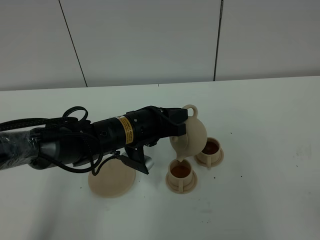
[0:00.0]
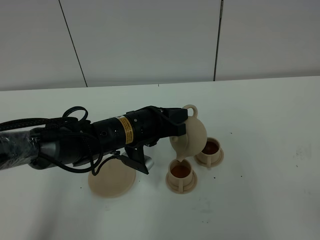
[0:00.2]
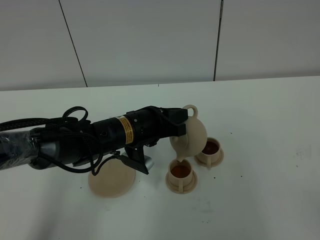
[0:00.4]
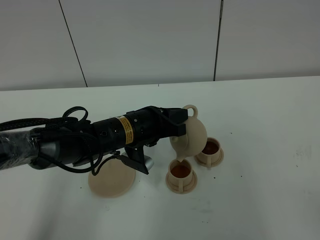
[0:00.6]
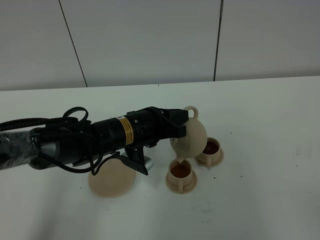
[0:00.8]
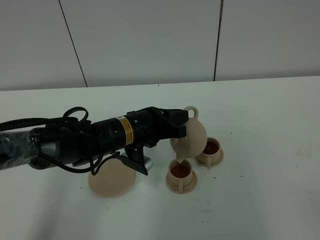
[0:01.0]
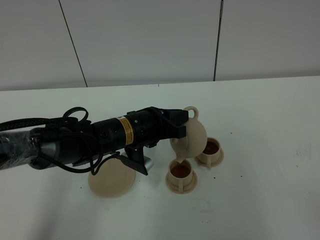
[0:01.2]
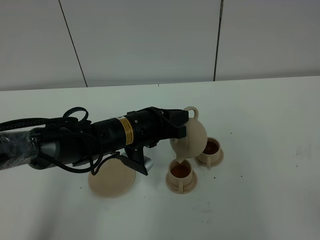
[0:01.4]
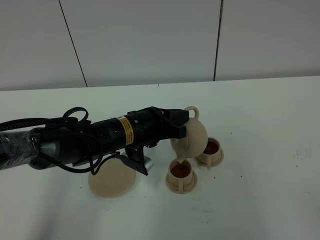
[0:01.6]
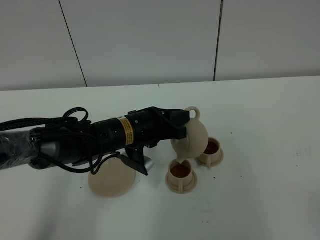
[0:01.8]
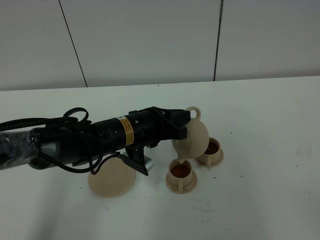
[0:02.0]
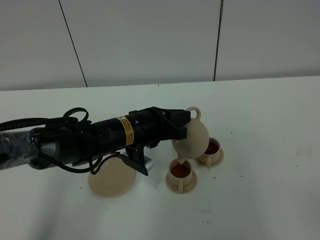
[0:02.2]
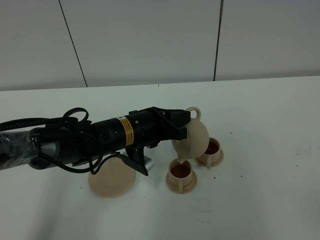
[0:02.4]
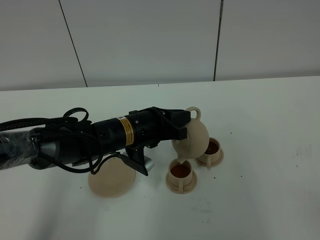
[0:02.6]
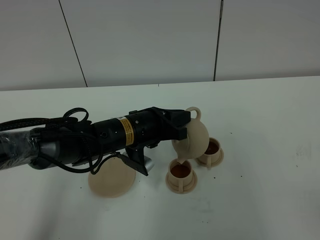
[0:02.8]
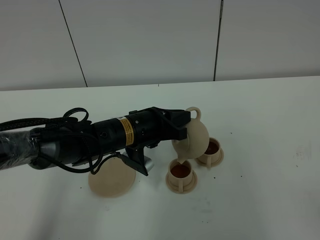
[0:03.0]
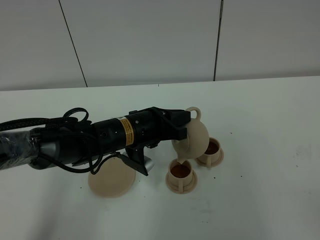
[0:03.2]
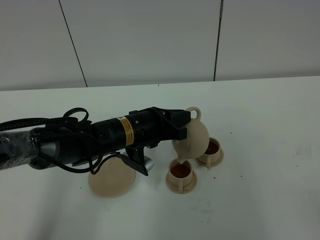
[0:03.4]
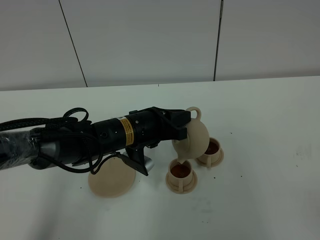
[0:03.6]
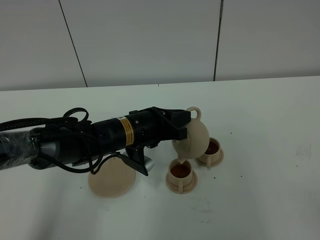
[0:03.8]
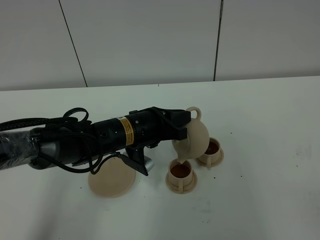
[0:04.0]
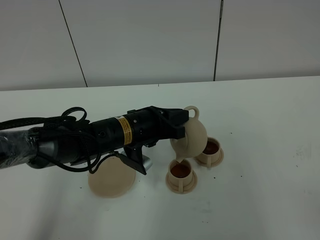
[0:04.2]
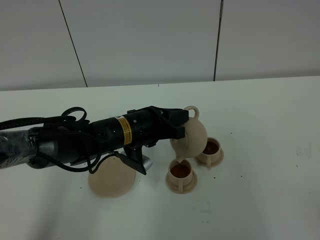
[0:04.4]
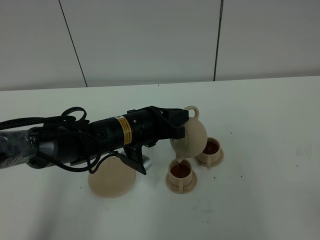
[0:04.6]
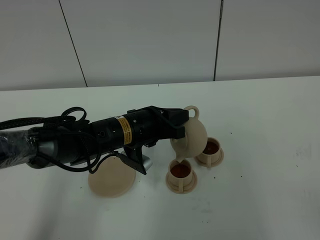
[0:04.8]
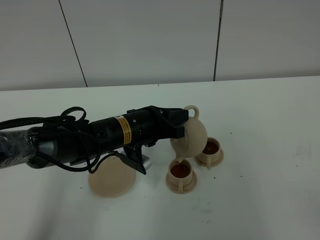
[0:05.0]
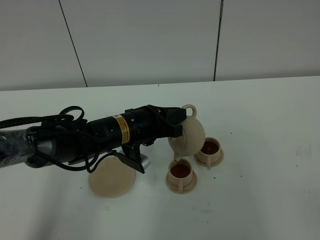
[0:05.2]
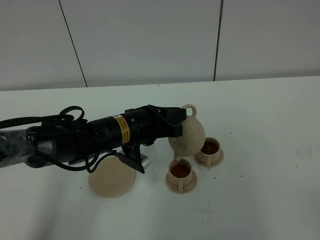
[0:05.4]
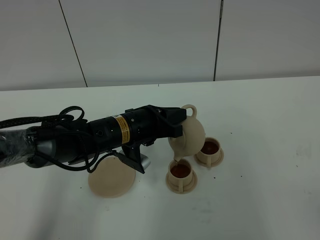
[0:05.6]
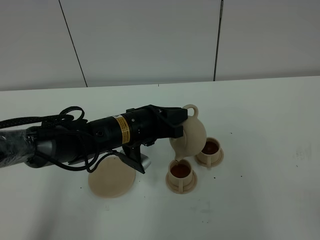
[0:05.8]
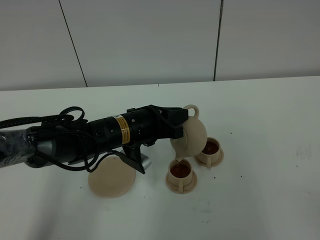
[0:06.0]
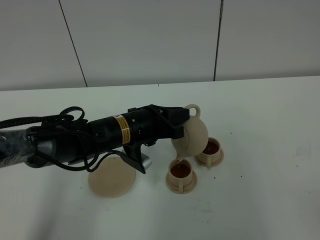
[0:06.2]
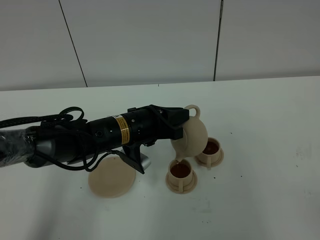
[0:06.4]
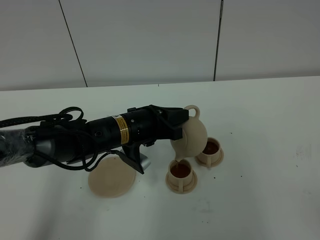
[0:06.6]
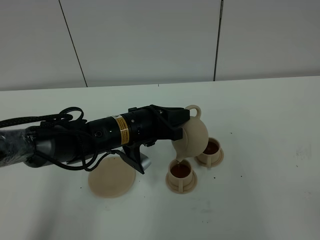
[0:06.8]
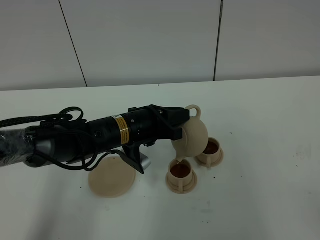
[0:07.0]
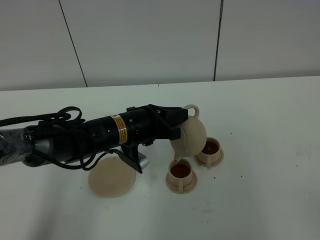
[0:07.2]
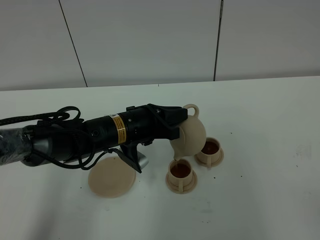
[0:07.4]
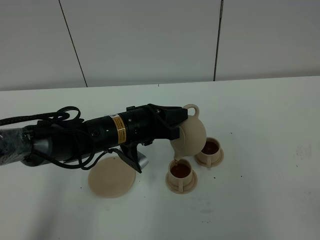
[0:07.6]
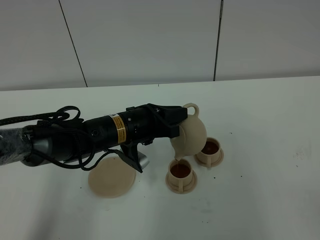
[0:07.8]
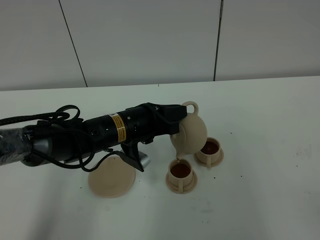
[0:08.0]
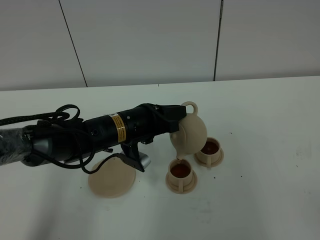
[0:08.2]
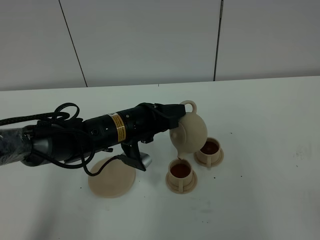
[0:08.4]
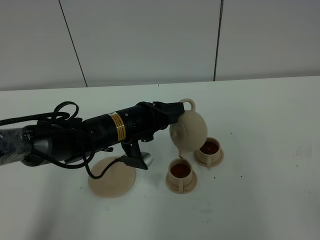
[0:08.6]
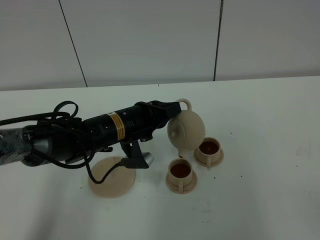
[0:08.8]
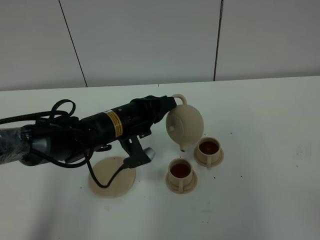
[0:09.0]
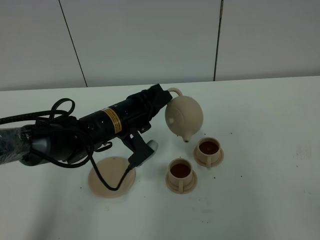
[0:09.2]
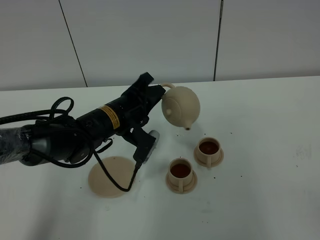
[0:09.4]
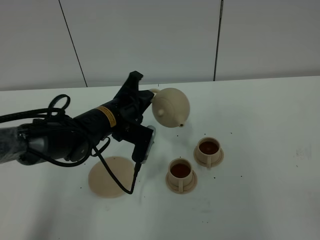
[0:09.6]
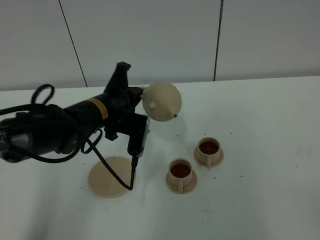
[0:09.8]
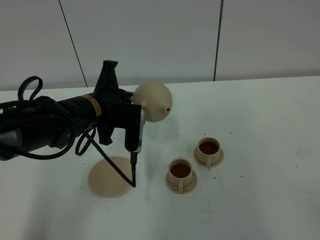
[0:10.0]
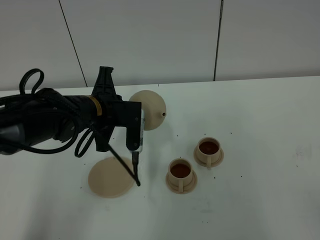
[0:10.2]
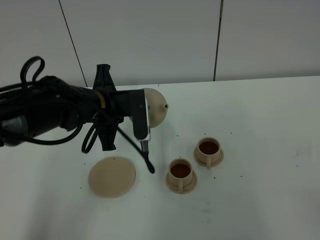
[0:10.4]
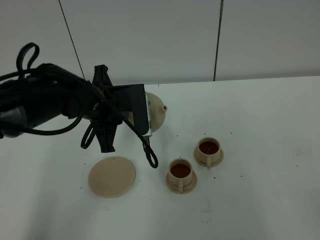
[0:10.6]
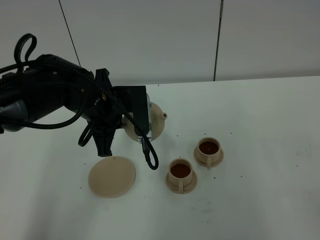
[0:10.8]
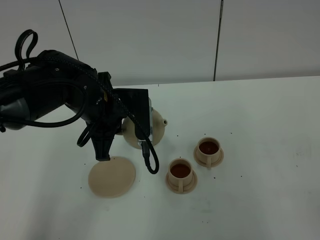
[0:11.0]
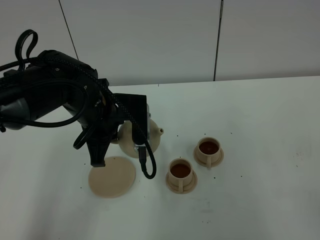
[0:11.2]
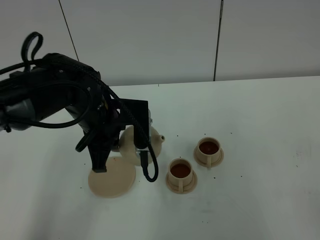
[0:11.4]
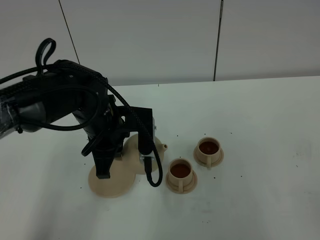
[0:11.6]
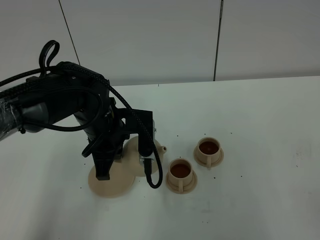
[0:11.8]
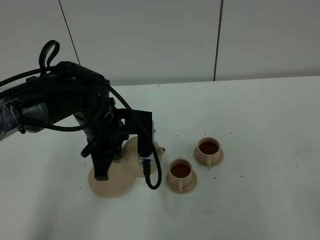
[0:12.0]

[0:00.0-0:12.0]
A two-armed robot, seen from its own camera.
Task of the whole recording: grasp the brown teapot and pour the tea into the two brown teacups one by one, put the brown teapot back in its original place.
Step, 0:00.0 to 0:08.6: Pour tea into the teacup with the left gripper.
0:00.0 to 0:06.0: The two grippers keep their place.
0:06.0 to 0:07.6: Both grippers stay put.
0:09.0 to 0:10.4: The left gripper heads upward, covering roughly 5 cm.

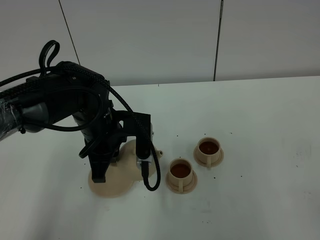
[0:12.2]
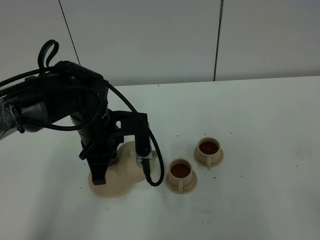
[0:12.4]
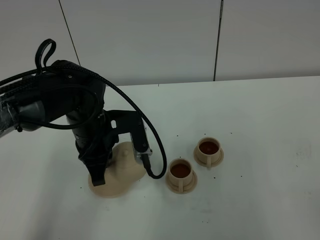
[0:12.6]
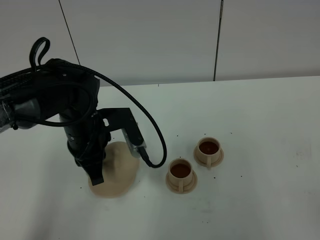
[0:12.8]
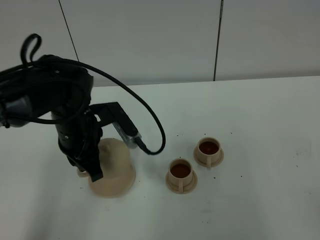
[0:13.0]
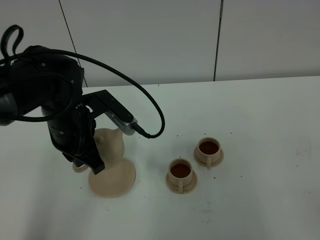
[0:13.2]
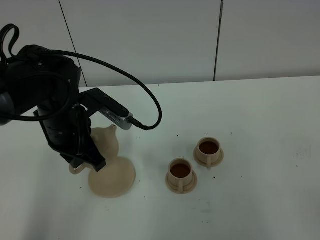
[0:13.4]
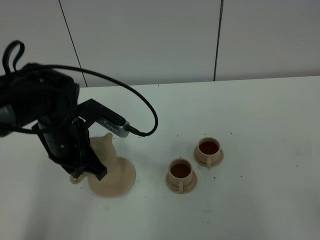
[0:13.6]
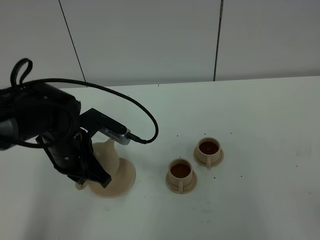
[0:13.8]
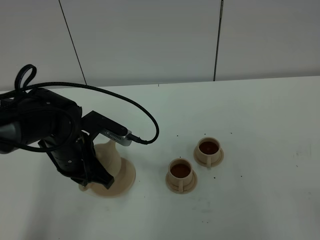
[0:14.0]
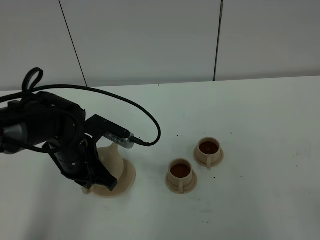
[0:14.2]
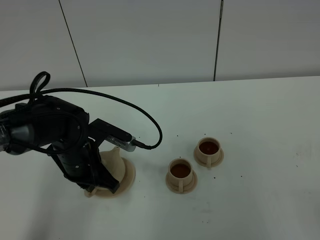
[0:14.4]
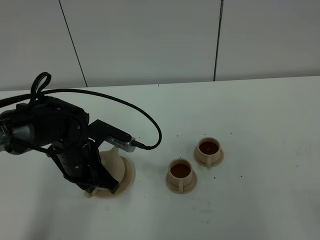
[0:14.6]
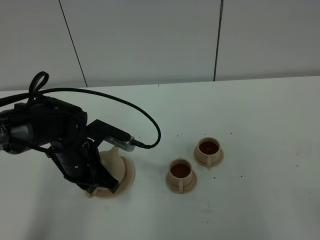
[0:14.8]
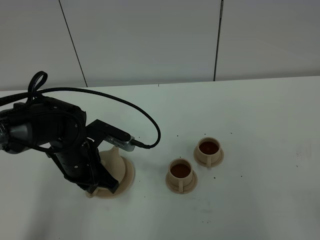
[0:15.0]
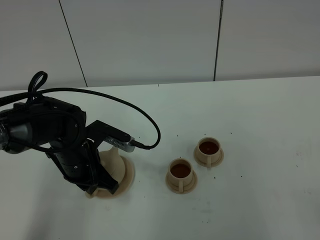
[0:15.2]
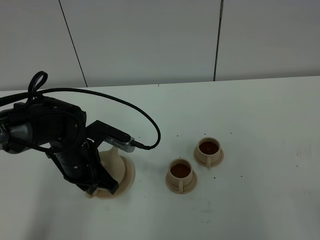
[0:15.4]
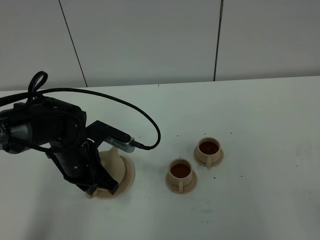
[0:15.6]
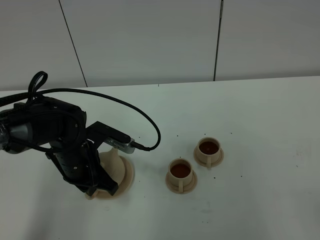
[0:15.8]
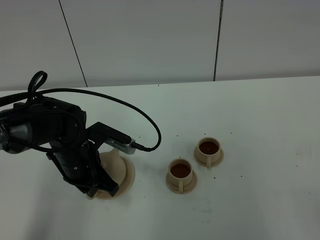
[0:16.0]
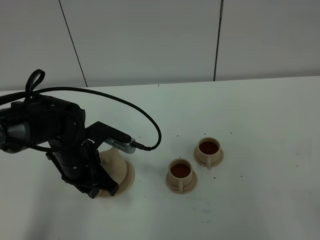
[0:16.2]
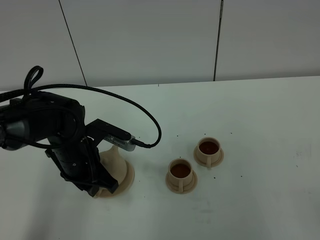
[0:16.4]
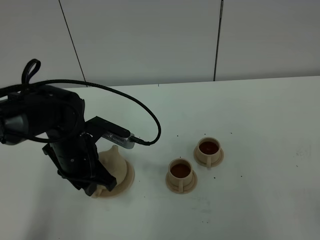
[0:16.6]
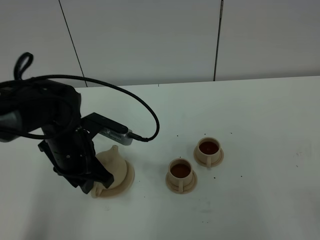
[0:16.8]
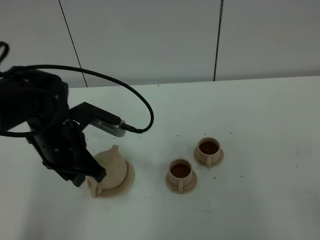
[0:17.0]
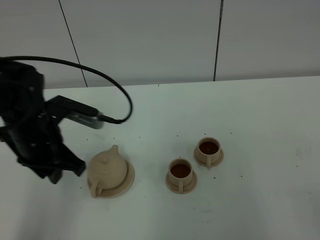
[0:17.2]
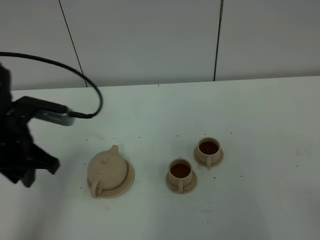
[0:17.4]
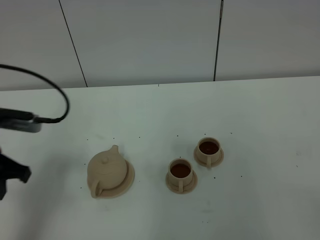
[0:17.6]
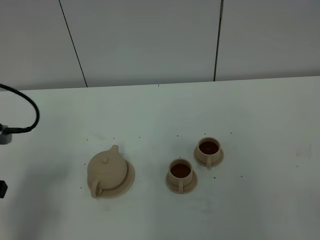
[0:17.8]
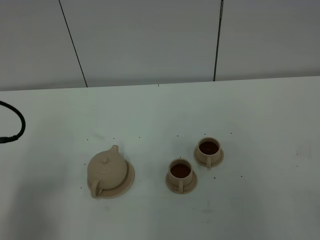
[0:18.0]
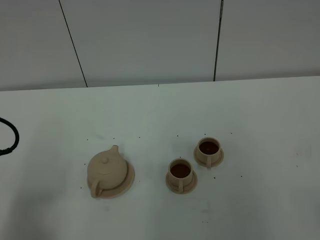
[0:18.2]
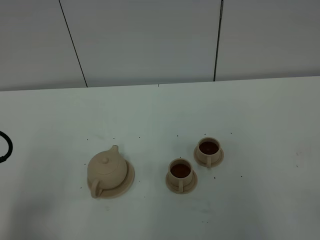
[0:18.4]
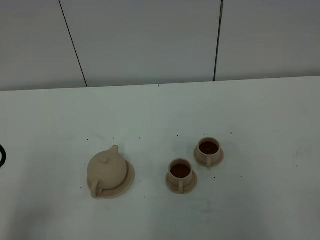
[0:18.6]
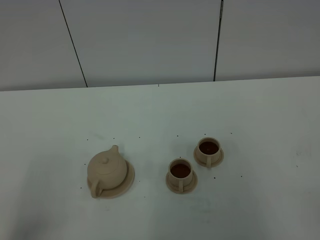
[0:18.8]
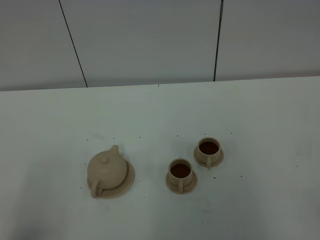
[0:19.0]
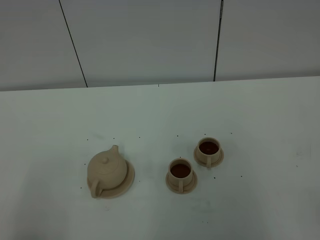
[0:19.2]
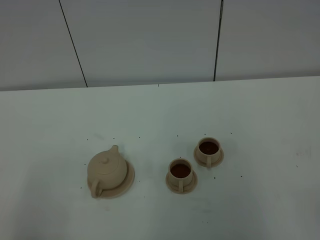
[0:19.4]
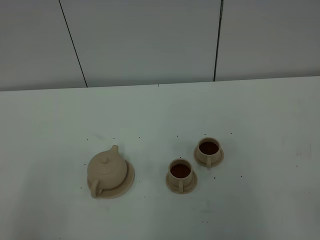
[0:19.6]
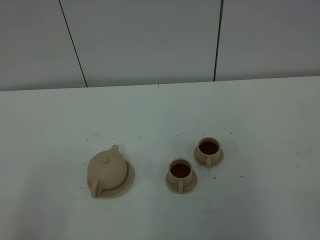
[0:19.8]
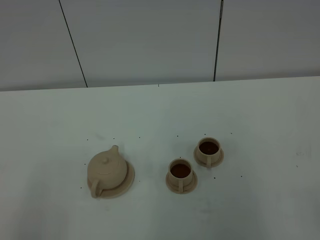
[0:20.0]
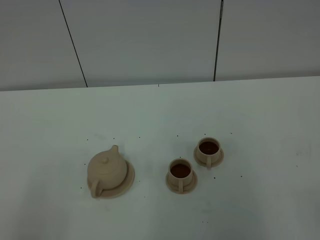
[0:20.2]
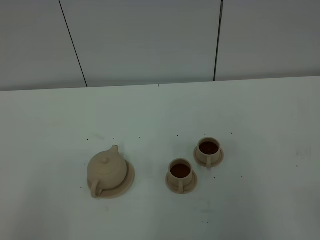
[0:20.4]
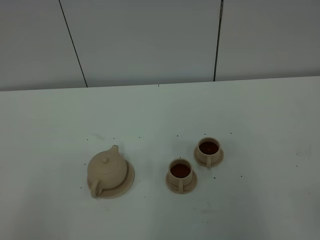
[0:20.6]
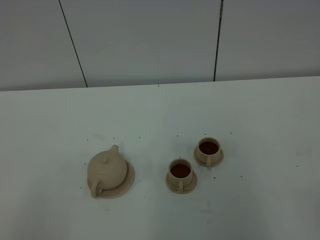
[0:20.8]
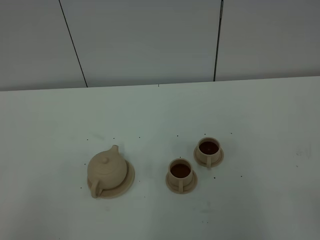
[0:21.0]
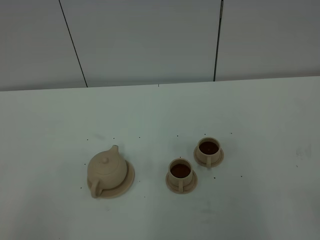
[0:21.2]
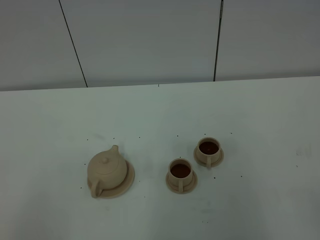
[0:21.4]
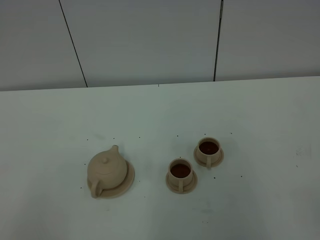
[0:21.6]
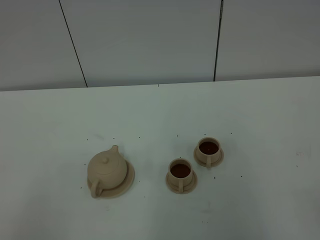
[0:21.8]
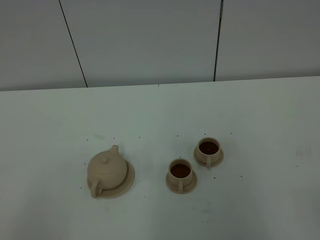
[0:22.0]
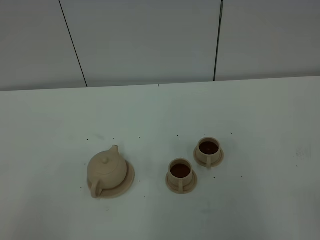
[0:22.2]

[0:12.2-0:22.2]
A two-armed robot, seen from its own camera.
Task of the whole recording: grasp the brown teapot and pour the tea into the two brown teacups one by one, put the brown teapot back in its original place.
0:12.2 to 0:13.6: The left gripper is displaced to the left by approximately 5 cm.
0:13.6 to 0:15.0: The left gripper travels downward by roughly 5 cm.
0:15.0 to 0:16.4: The left gripper opens.
0:16.4 to 0:18.0: The left gripper goes about 25 cm to the left, backward and upward.
0:20.8 to 0:22.2: Both grippers stay about where they are.
